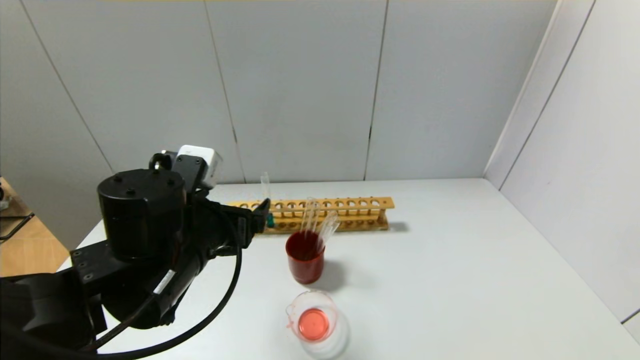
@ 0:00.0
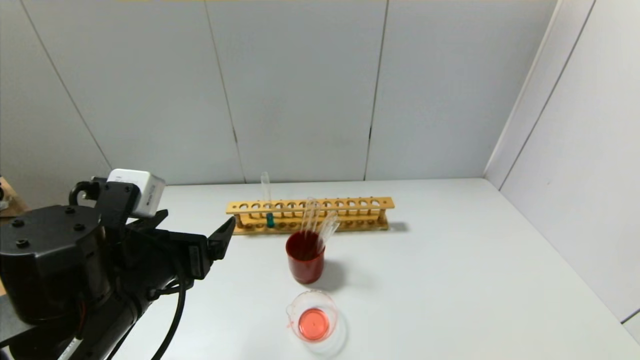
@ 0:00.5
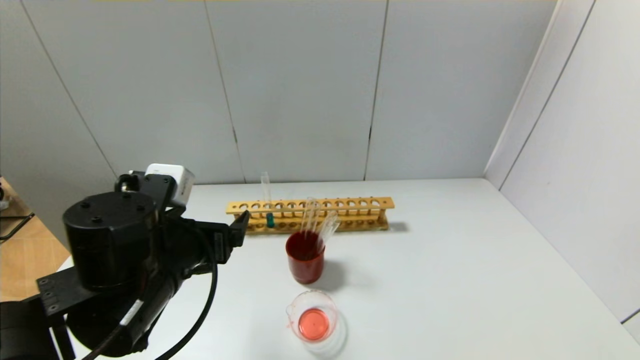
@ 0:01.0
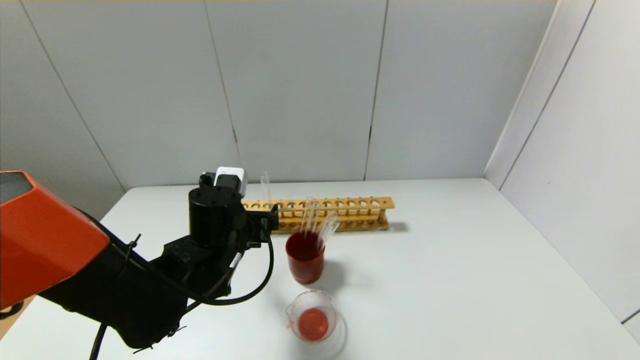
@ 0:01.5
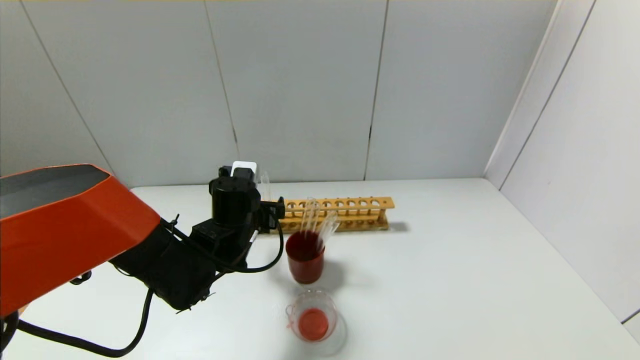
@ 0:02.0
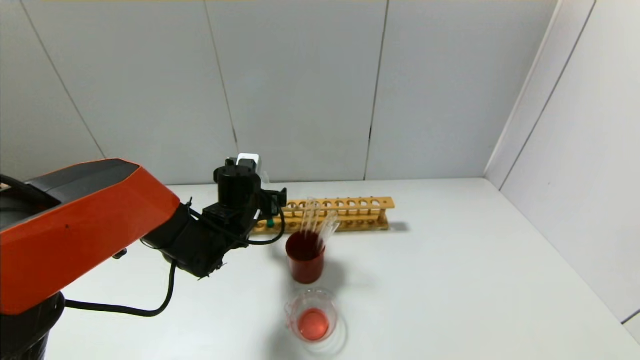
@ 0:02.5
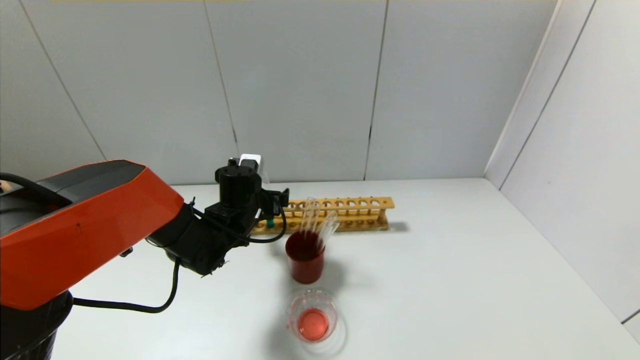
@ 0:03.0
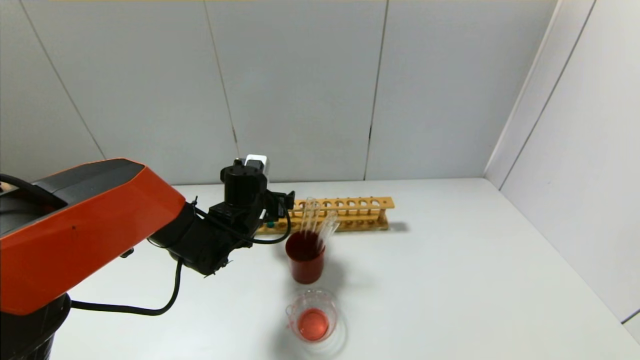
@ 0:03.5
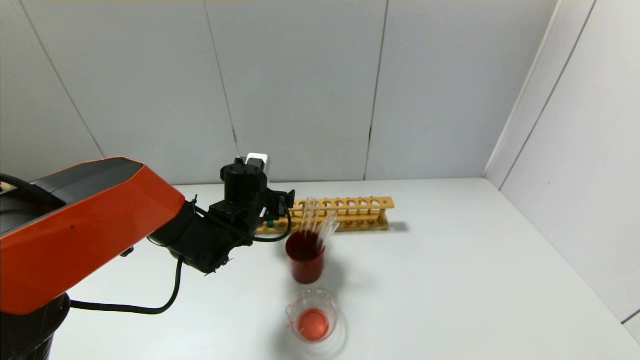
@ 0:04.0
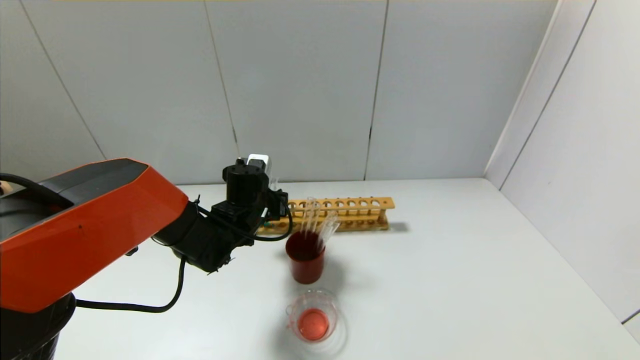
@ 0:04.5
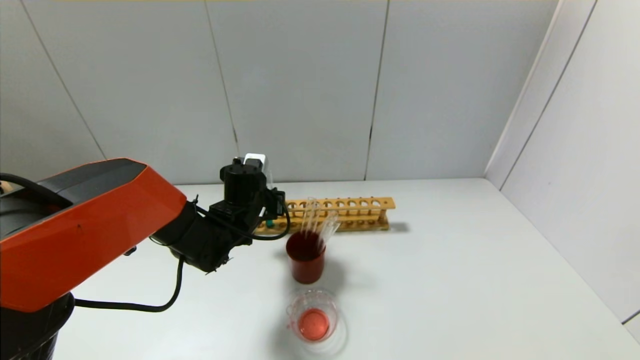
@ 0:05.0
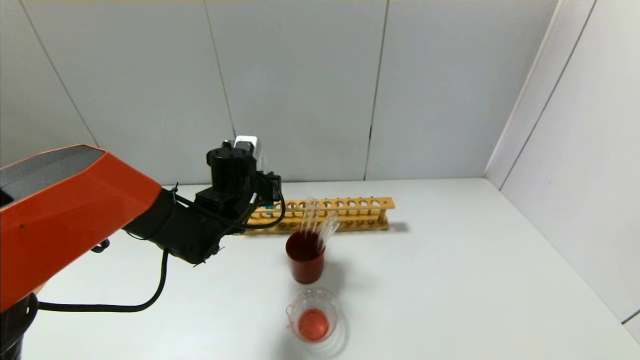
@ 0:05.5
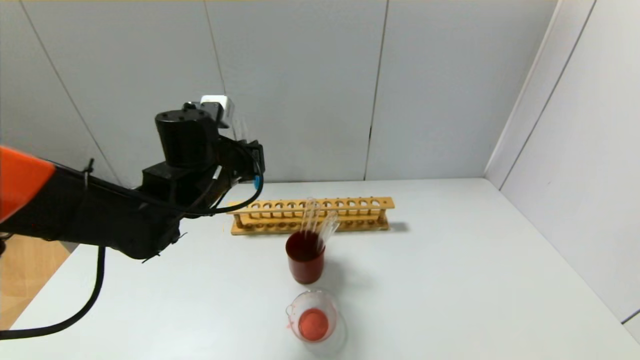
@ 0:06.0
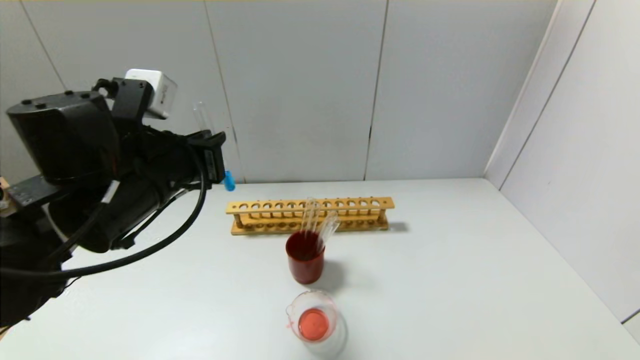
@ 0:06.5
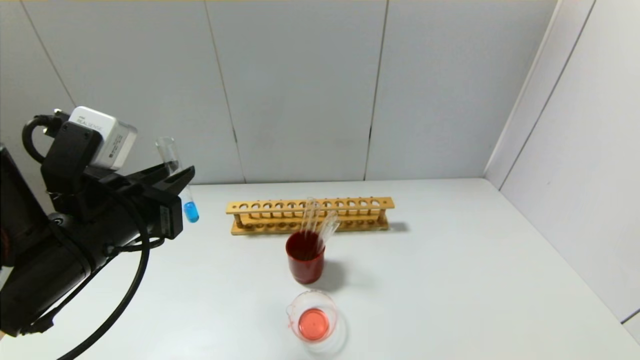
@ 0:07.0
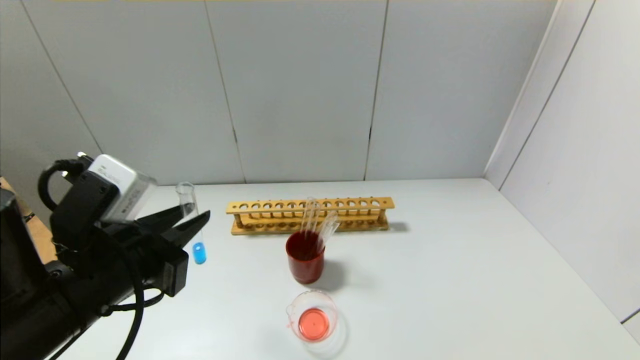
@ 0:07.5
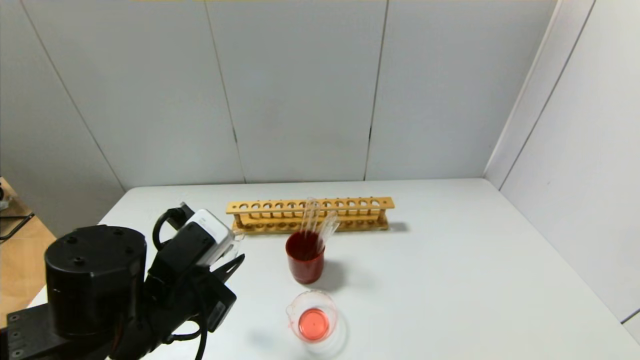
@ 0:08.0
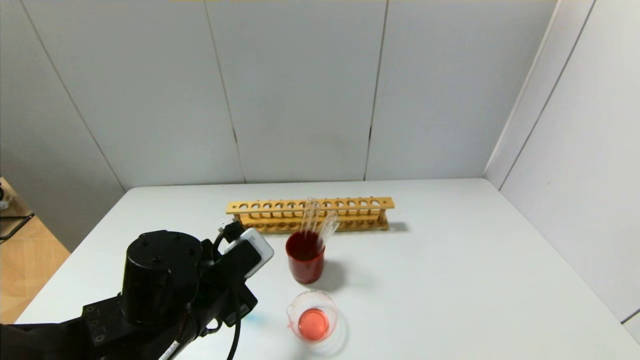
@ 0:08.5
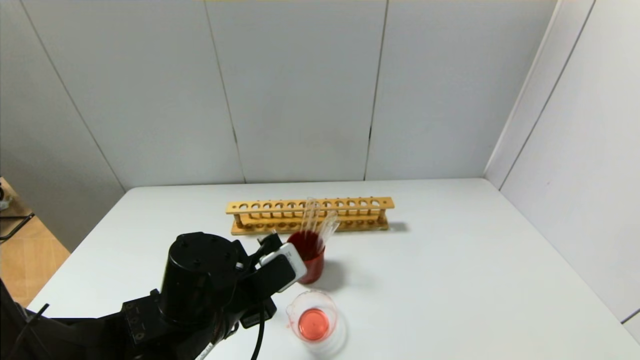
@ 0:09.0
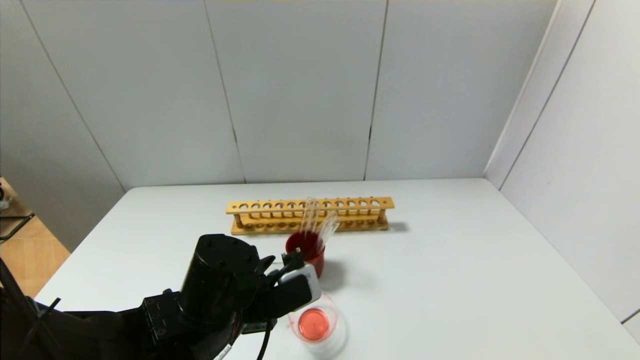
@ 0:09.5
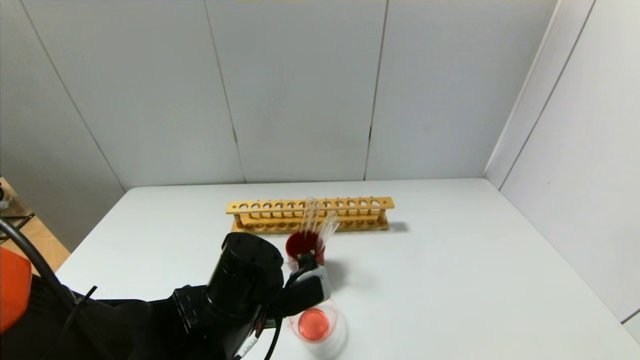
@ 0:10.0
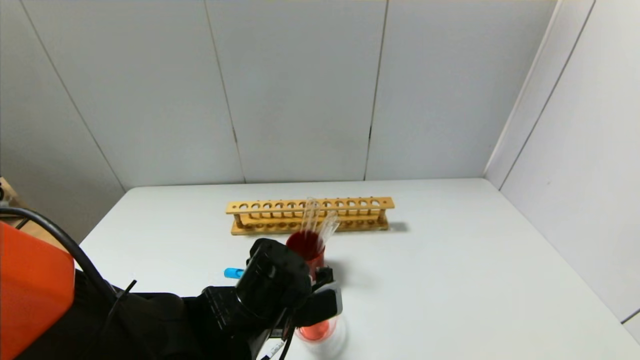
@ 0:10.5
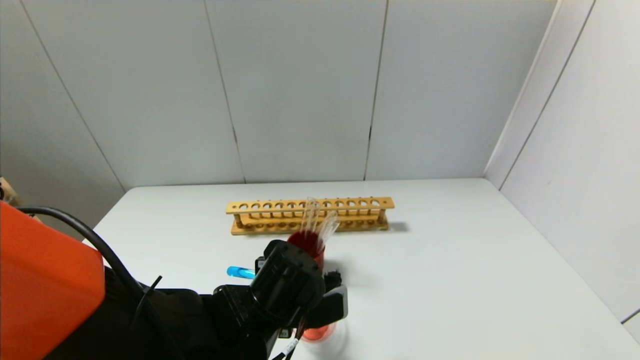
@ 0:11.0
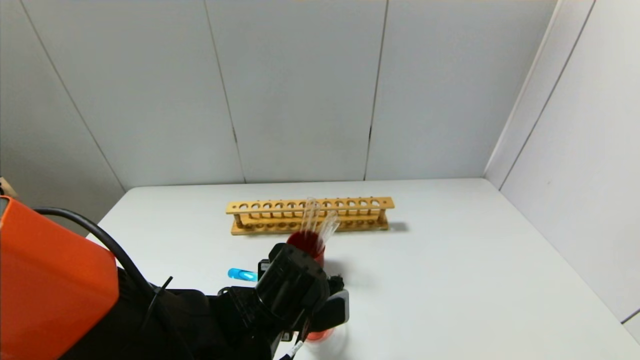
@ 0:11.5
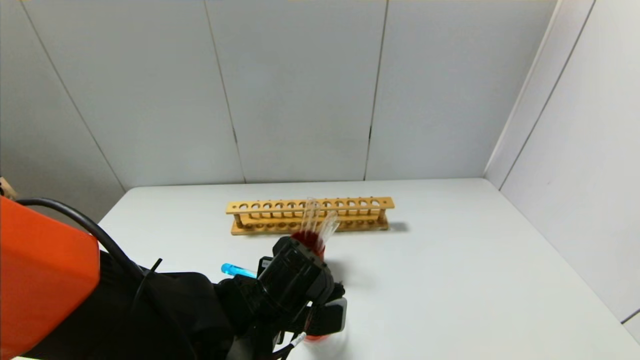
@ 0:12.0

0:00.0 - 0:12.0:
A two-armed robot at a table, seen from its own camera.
Step, 0:00.0 - 0:04.5: Grasp the blue reagent with the left gripper.
0:00.0 - 0:02.0: The left gripper goes about 15 cm forward and downward.
0:02.0 - 0:04.0: The left gripper is displaced forward by some 5 cm.
0:04.0 - 0:06.0: The left gripper heads upward and backward, covering about 10 cm, and closes its fingers.
0:06.0 - 0:08.0: The left gripper heads backward, covering roughly 15 cm.
0:08.0 - 0:10.0: The left gripper travels to the right by approximately 5 cm.

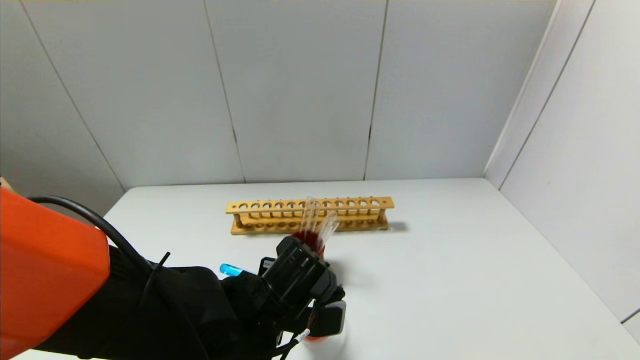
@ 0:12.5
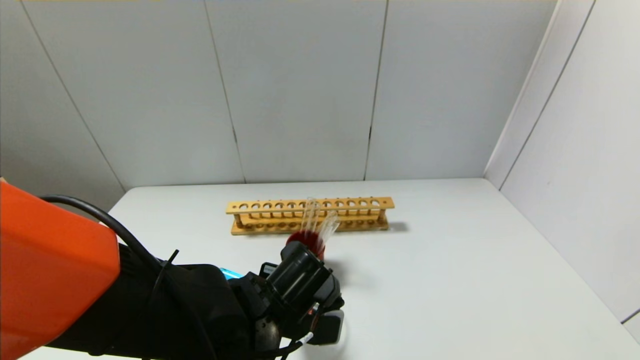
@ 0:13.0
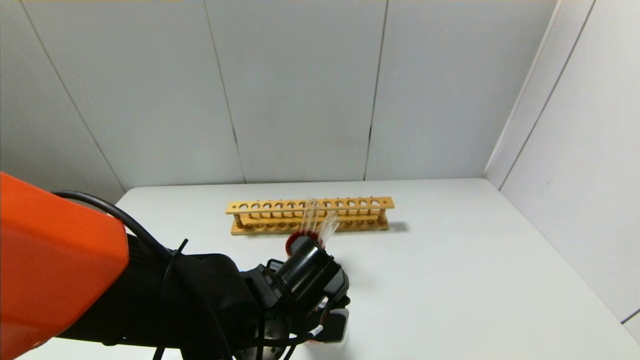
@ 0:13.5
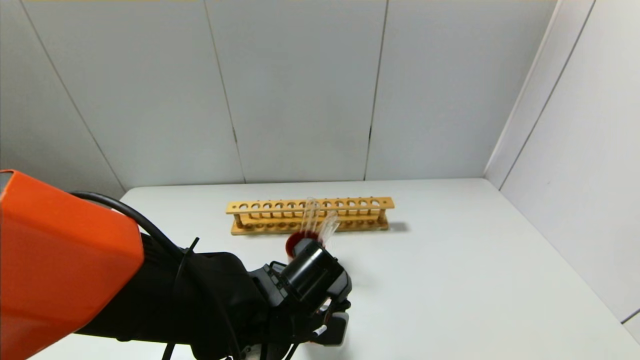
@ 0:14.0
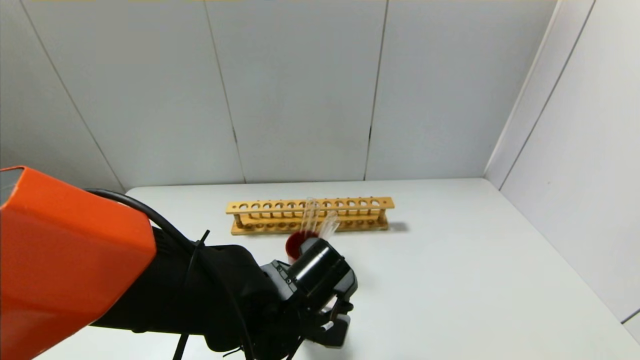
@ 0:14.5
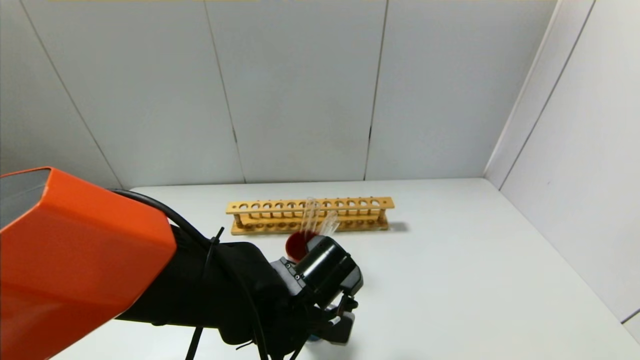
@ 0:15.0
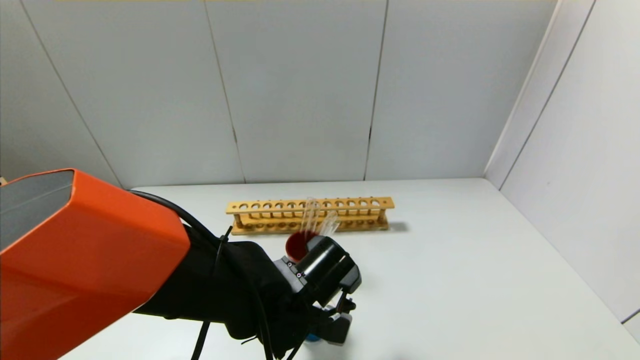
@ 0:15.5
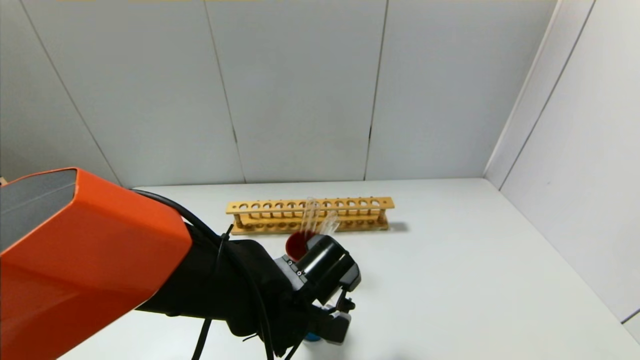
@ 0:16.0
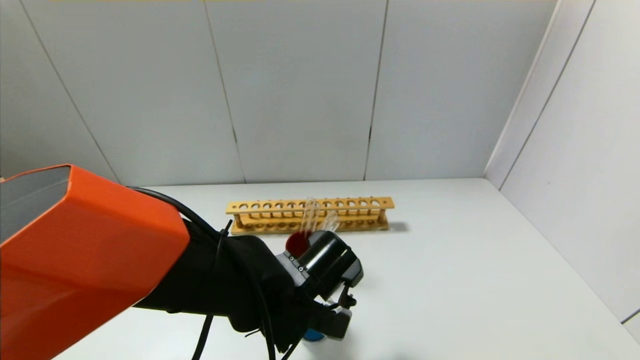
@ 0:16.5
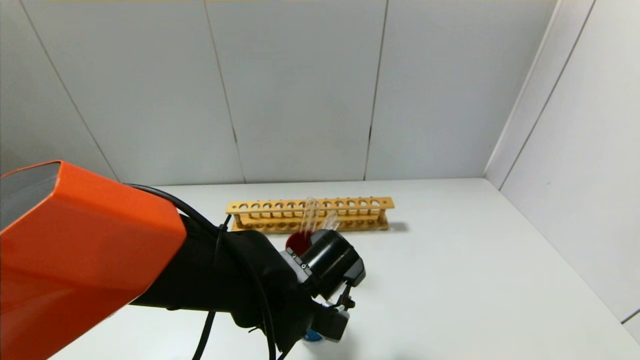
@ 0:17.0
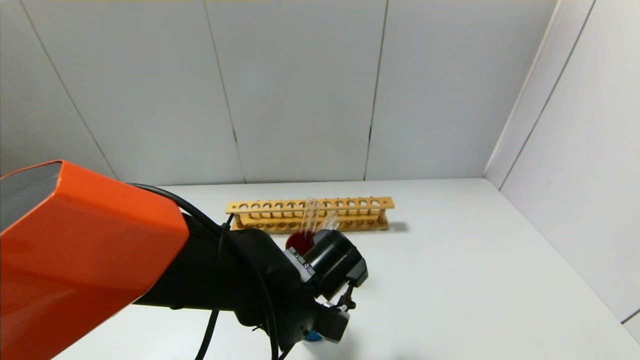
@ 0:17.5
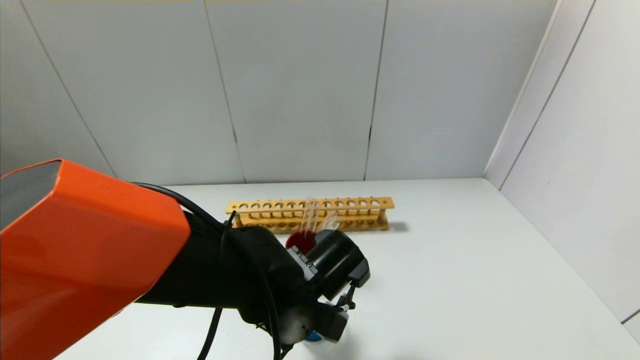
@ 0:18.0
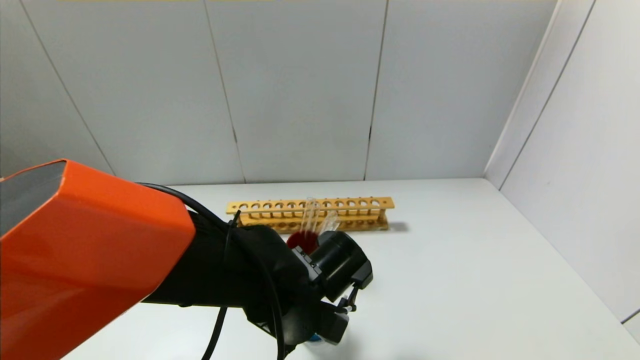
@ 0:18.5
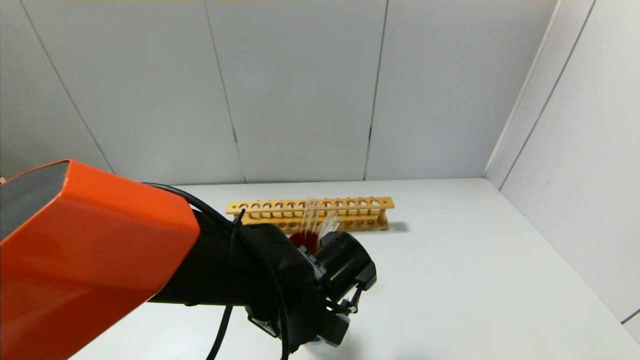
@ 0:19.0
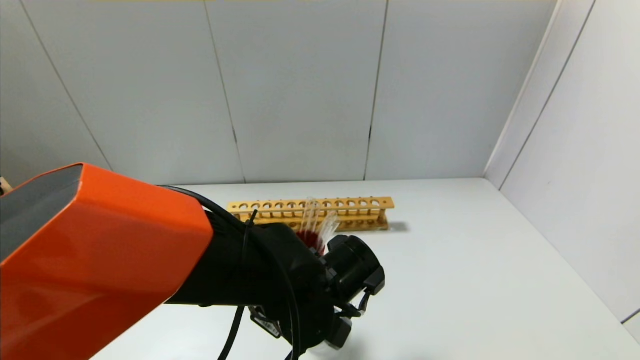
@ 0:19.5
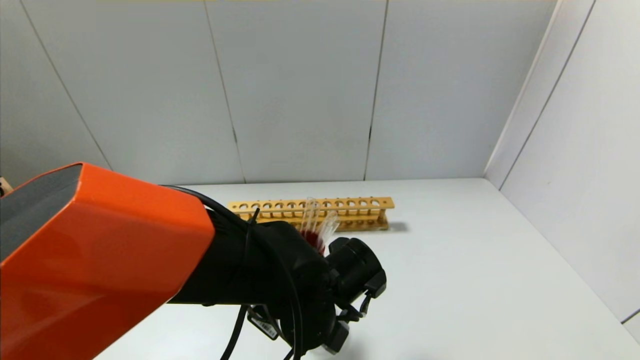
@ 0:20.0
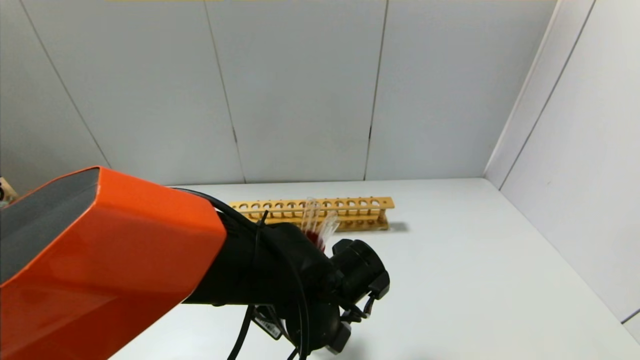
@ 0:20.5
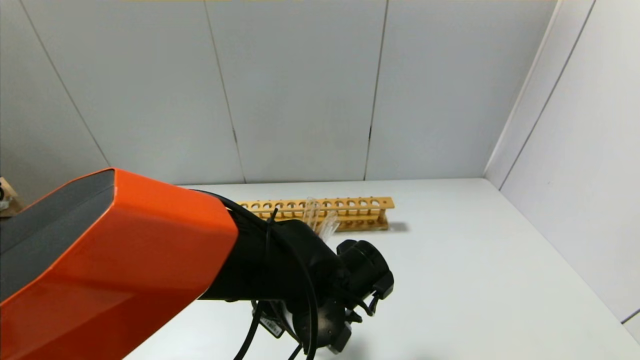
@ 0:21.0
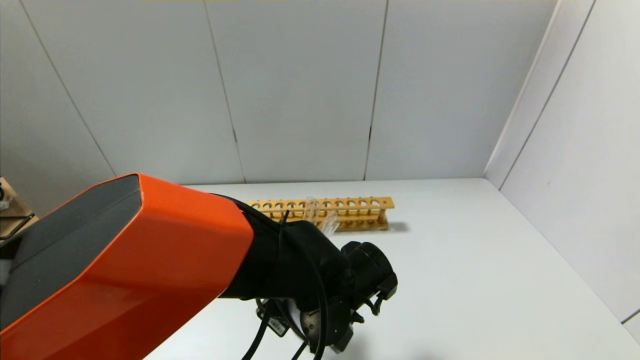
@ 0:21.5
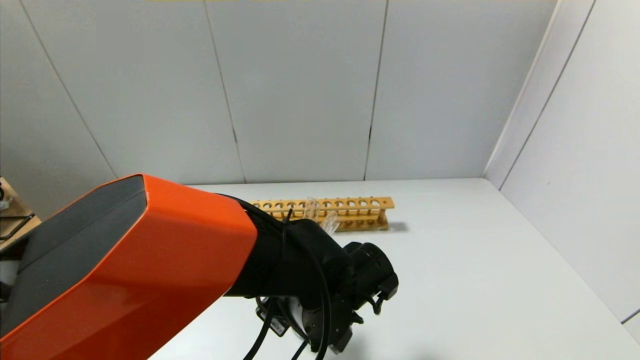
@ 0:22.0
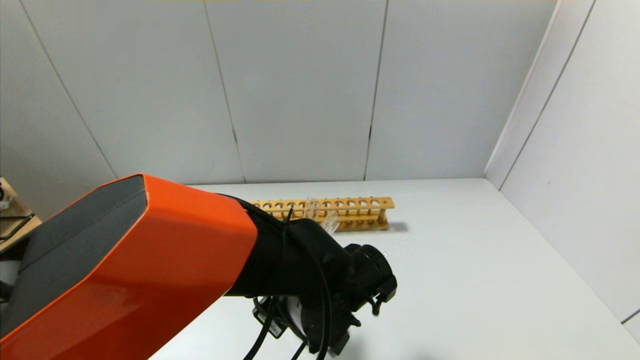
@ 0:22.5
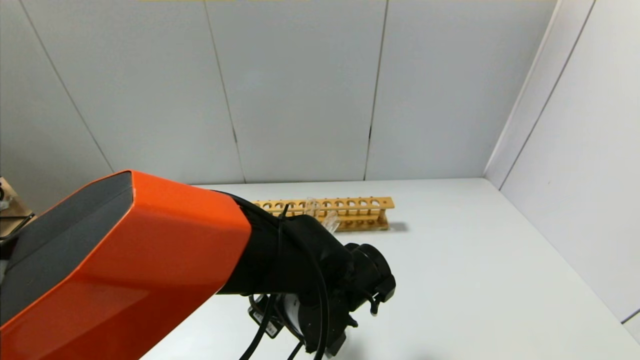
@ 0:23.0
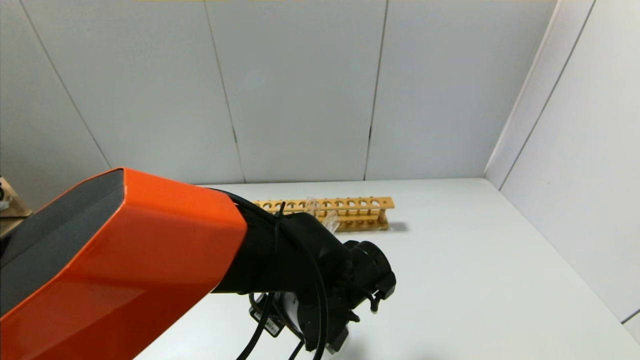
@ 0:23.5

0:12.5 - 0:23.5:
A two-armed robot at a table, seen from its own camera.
0:12.5 - 0:16.0: The grippers make only small movements.
0:16.0 - 0:20.0: The grippers move only a little.
0:20.0 - 0:21.5: The grippers stay close to where they were, moving slightly.
0:21.5 - 0:23.5: Both grippers stay put.
